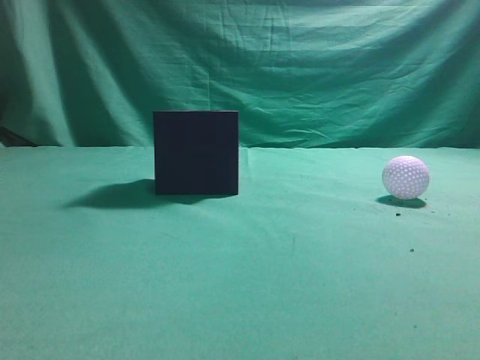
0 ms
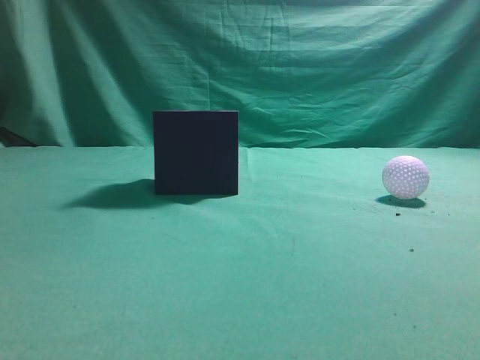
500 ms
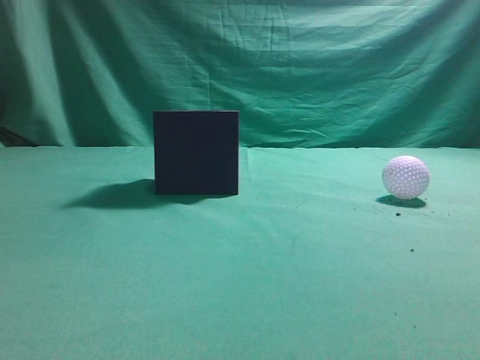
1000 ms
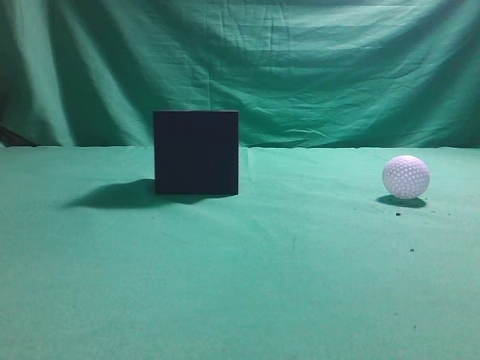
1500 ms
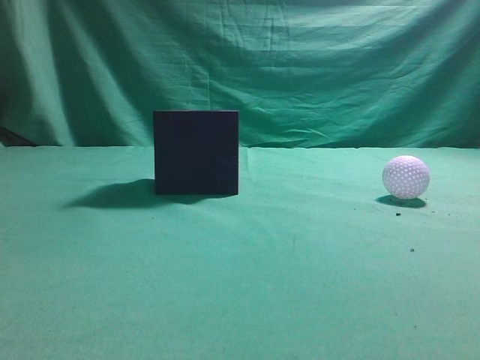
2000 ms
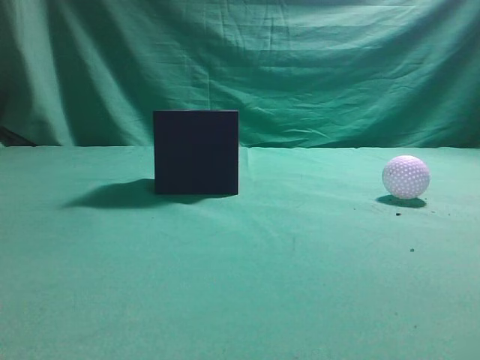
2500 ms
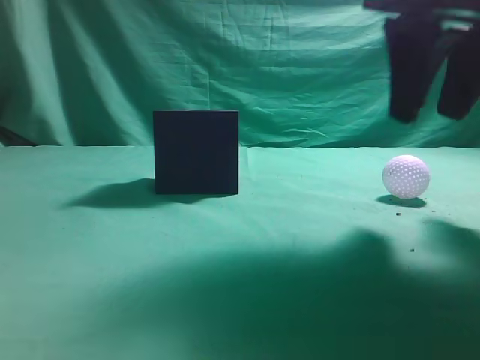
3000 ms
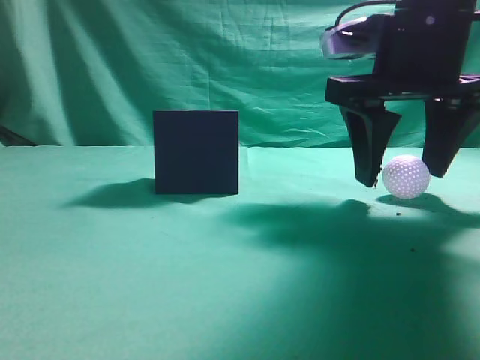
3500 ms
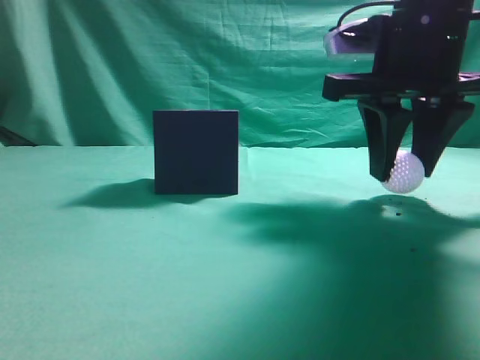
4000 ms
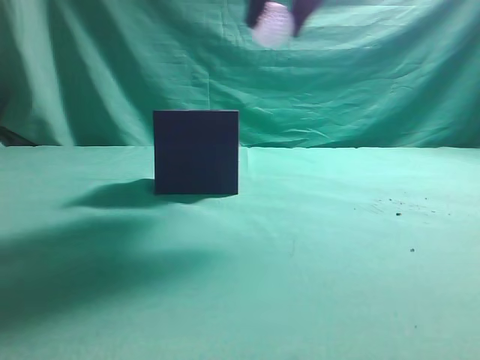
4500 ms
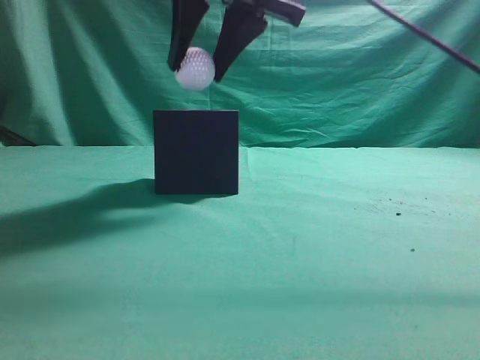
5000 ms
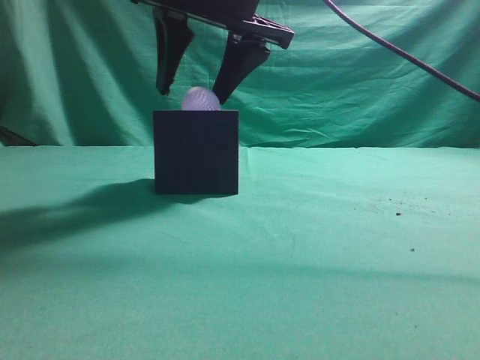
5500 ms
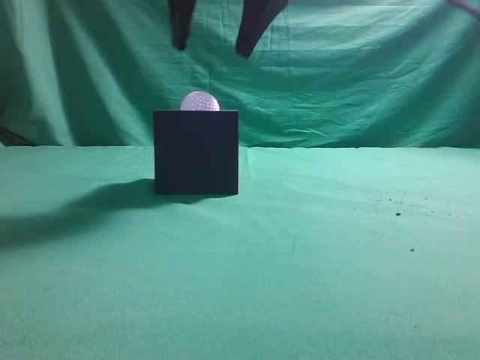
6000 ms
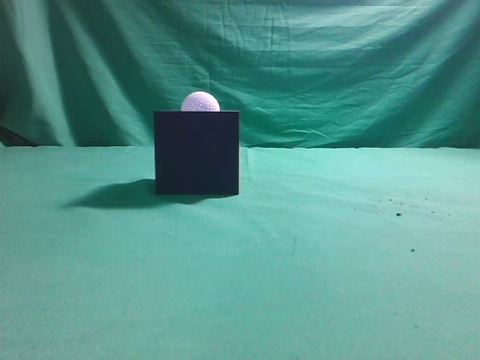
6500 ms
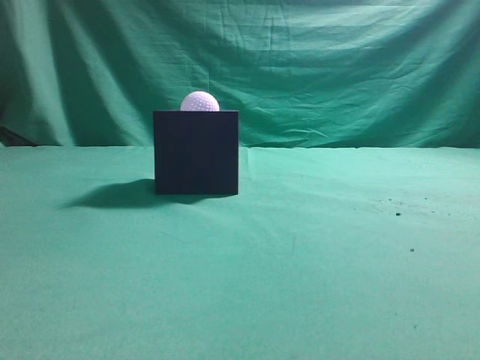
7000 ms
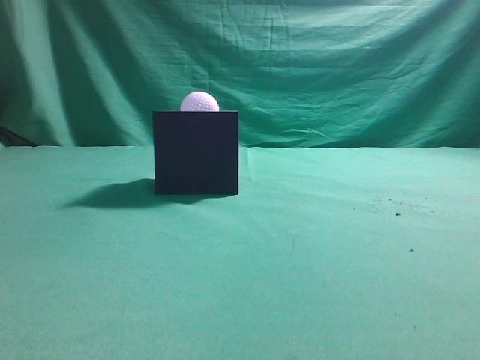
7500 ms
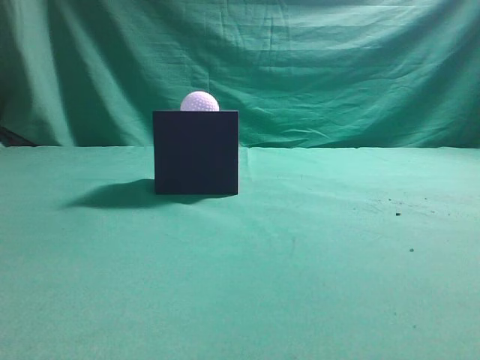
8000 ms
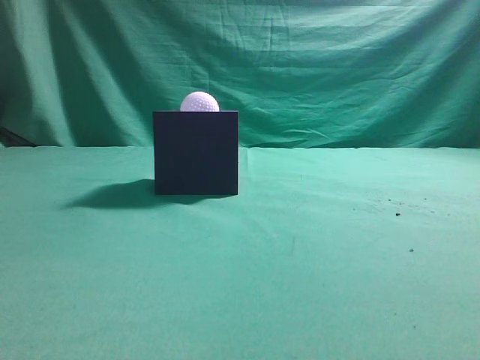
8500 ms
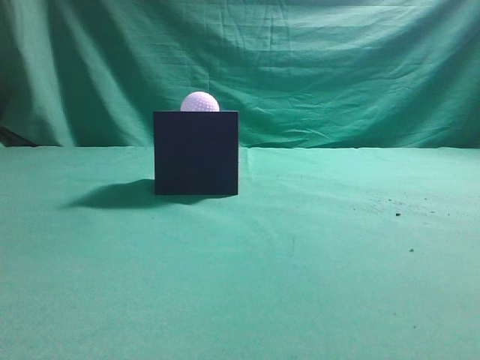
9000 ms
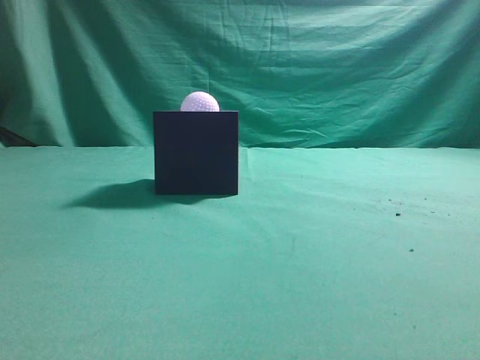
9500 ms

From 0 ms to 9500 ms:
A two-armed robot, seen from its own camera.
Task of the whole recording: Pick up the ball and place it in the circular groove above the cube.
Step, from 0 ms to 4000 ms: Grasp the sphere on the table.
Step, from 4500 ms to 5500 ms: Place the sphere into the sphere-shaped recess.
From 2000 ms to 4000 ms: The right gripper heads forward, to the left and downward, covering approximately 30 cm, and opens.
From 4000 ms to 5500 ms: The right gripper goes approximately 15 cm to the left and upward.
From 5500 ms to 7500 ms: The right gripper goes approximately 40 cm backward, to the right and upward, and closes its fingers.
